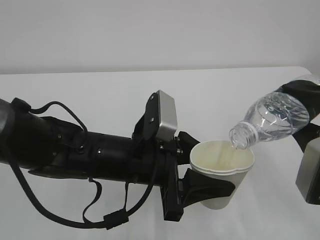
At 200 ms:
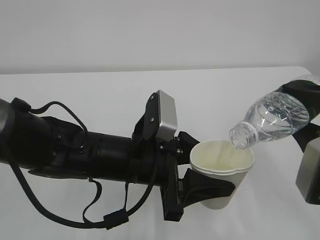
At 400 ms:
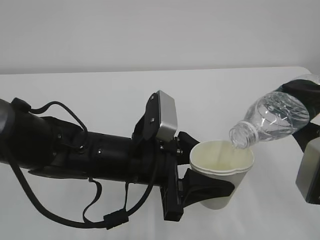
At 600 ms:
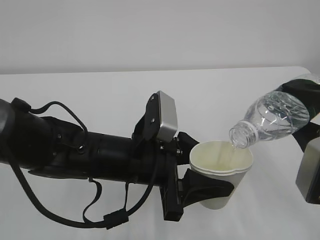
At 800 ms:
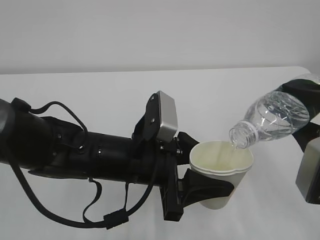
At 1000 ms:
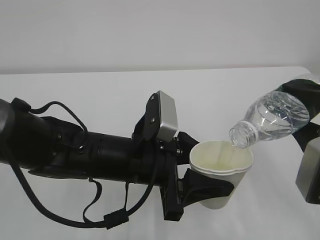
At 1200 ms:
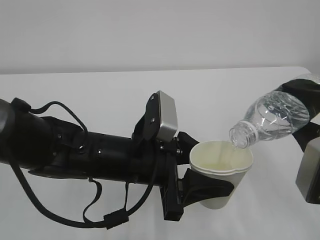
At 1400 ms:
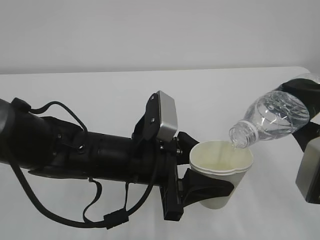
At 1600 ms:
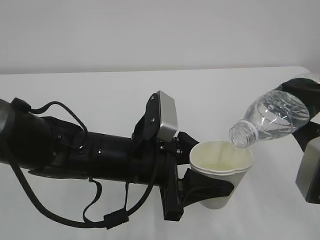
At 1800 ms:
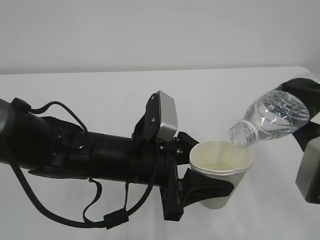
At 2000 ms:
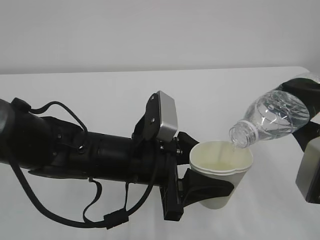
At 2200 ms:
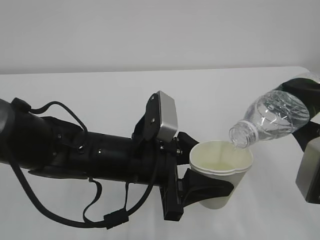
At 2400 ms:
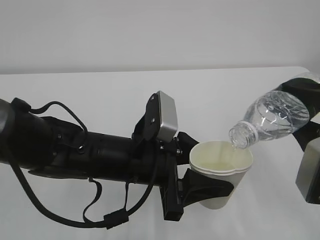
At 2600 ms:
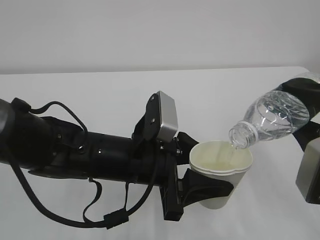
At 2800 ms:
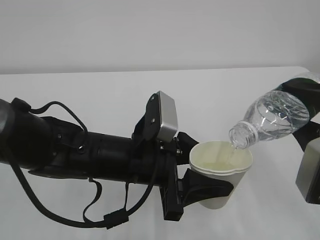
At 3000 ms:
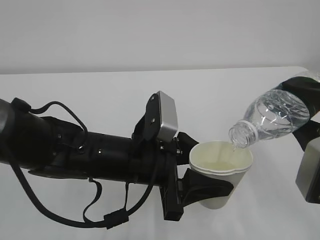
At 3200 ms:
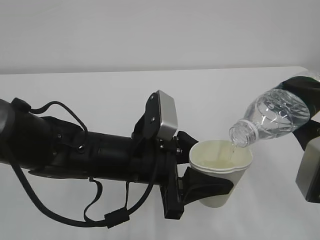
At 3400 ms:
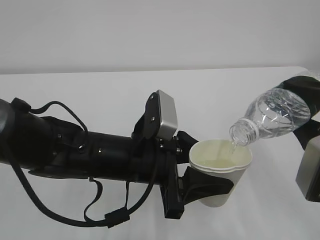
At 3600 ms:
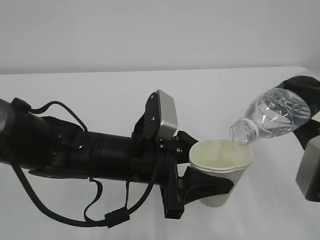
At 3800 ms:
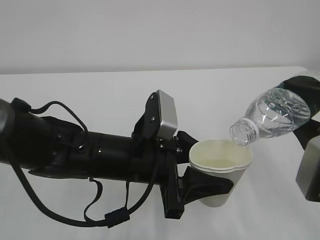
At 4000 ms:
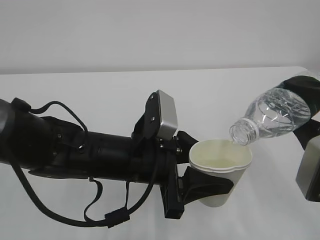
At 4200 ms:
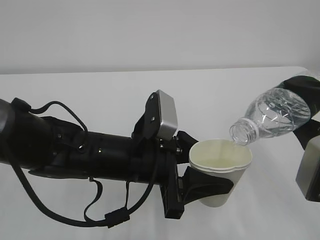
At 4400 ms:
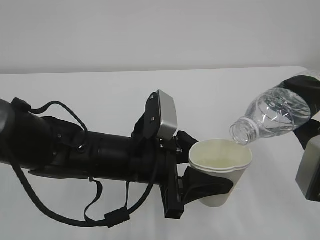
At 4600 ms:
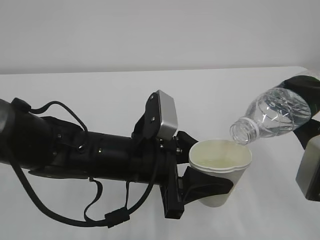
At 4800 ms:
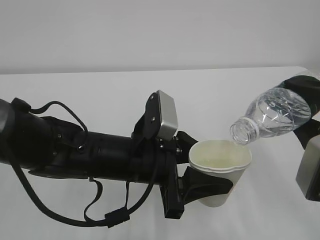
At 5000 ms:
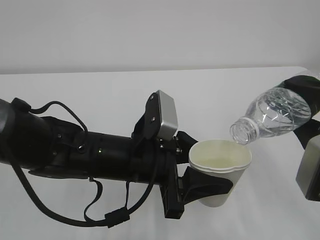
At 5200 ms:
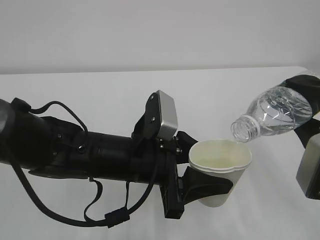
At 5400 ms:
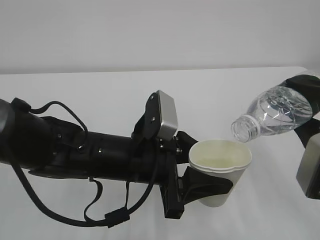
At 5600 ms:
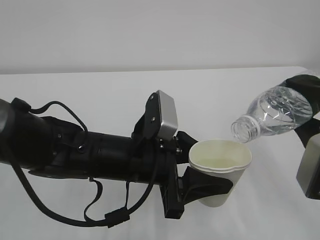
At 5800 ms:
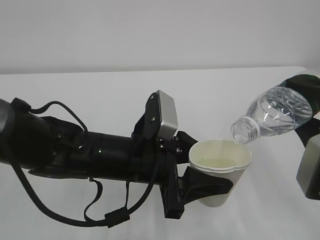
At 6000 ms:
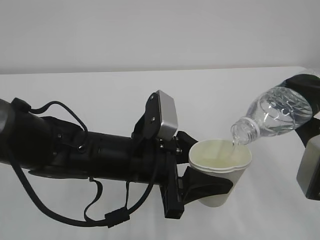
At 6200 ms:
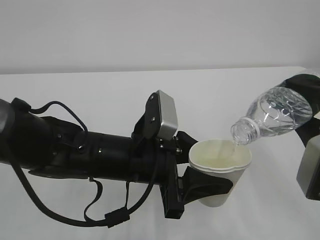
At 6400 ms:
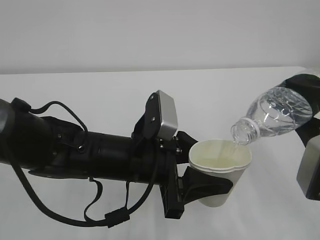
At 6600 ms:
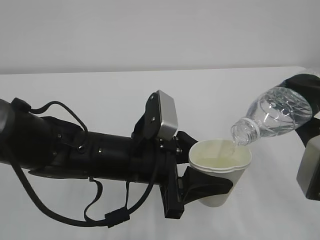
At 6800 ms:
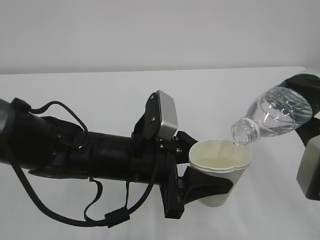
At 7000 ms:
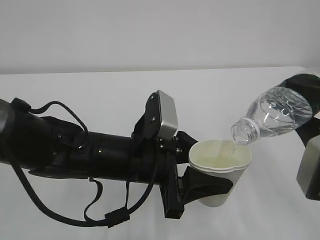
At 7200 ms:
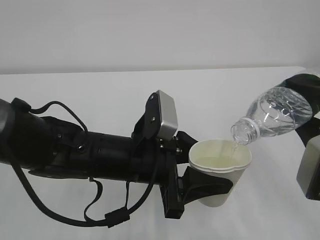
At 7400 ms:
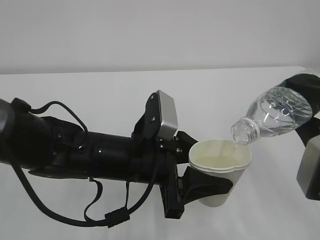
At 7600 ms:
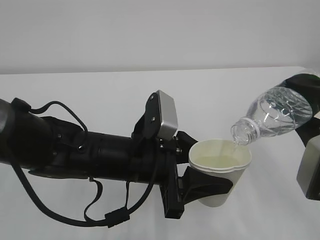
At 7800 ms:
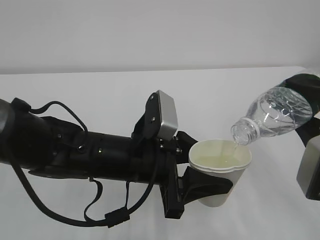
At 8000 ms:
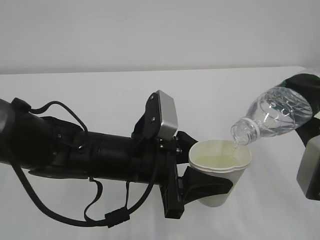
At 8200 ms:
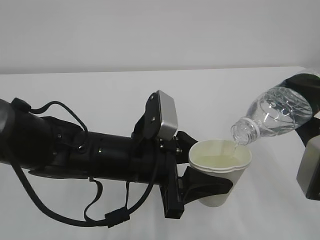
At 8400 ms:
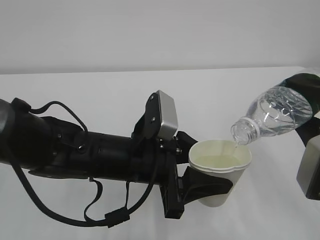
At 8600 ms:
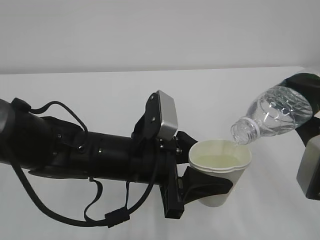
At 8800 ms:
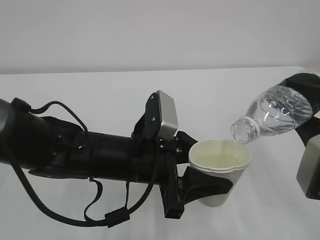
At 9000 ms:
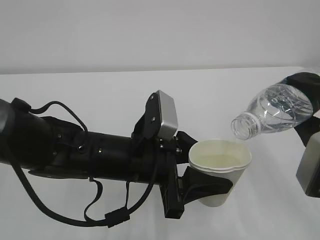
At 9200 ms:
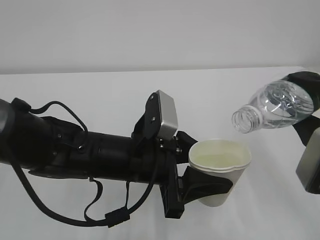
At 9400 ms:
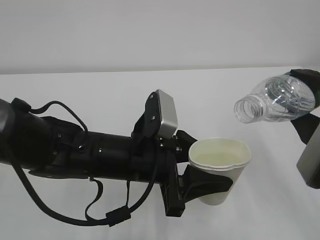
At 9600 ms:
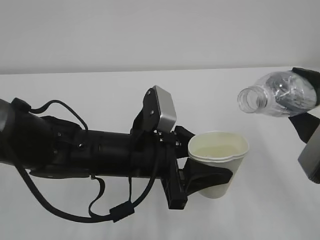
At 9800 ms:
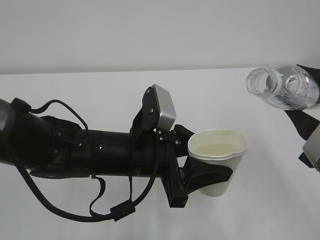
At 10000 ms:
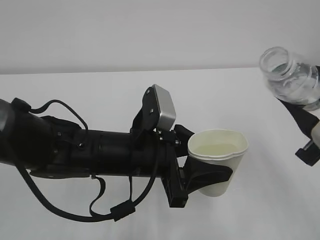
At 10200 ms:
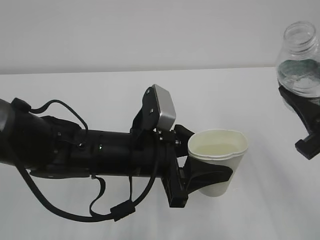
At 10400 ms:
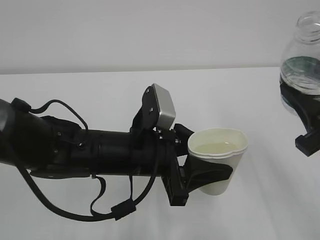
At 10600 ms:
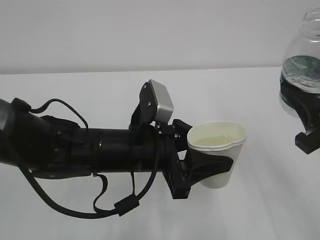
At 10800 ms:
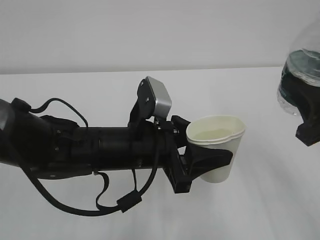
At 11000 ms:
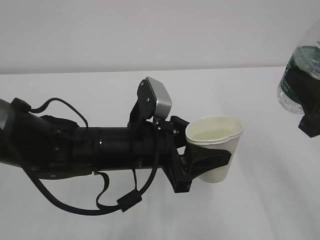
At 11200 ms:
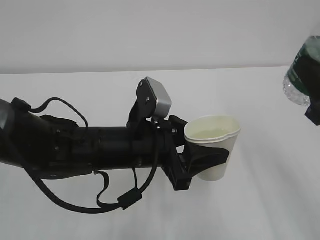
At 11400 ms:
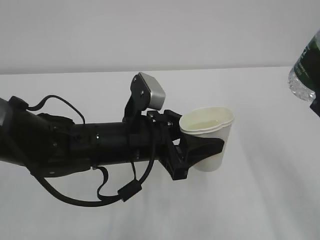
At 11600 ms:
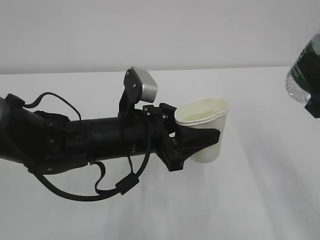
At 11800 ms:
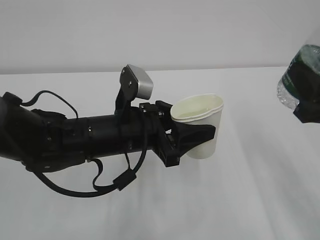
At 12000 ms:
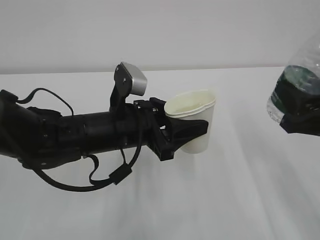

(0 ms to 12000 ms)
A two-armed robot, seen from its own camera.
0 ms - 9000 ms: Both grippers stay put.
10400 ms - 12000 ms: The right gripper moves some 5 cm.

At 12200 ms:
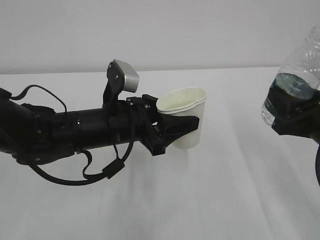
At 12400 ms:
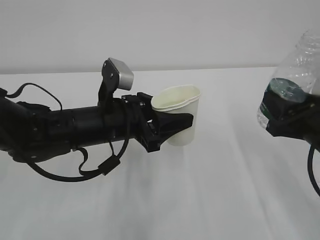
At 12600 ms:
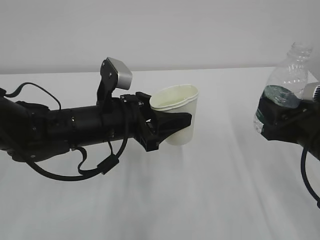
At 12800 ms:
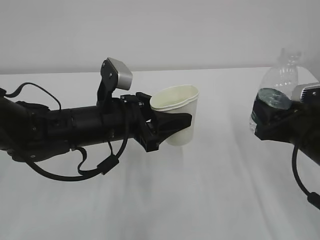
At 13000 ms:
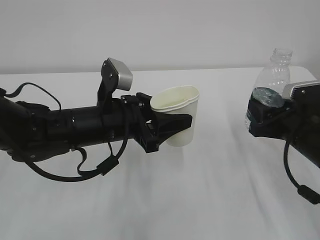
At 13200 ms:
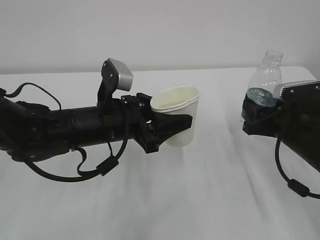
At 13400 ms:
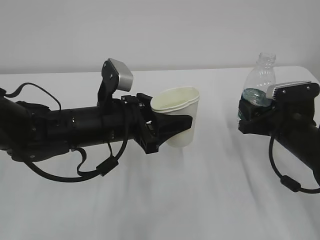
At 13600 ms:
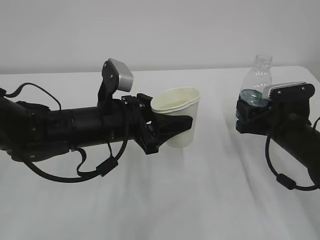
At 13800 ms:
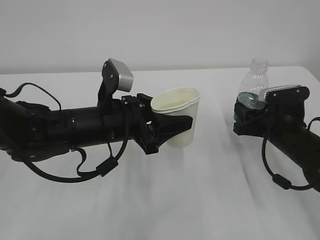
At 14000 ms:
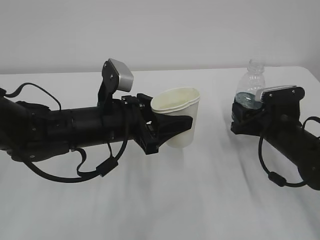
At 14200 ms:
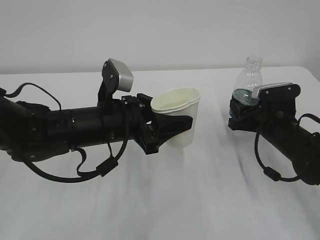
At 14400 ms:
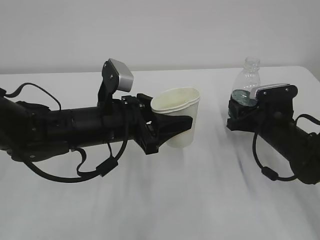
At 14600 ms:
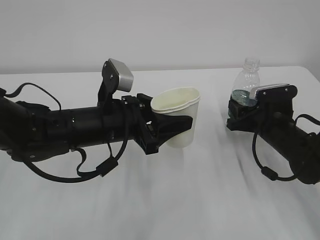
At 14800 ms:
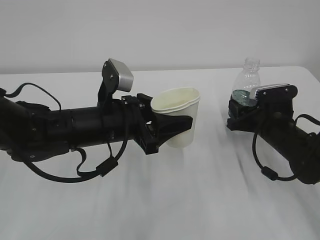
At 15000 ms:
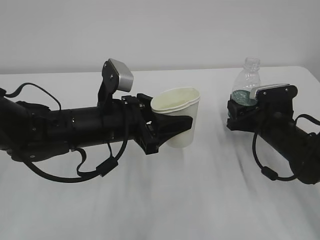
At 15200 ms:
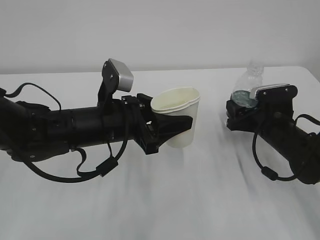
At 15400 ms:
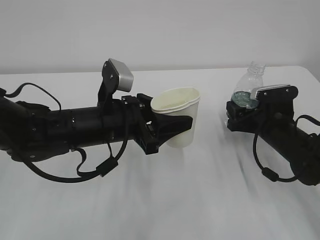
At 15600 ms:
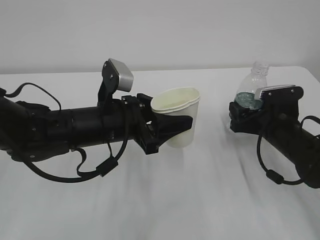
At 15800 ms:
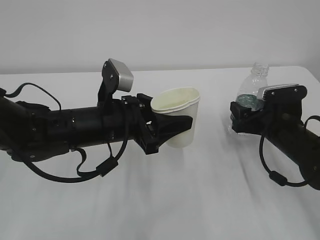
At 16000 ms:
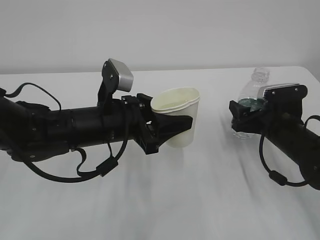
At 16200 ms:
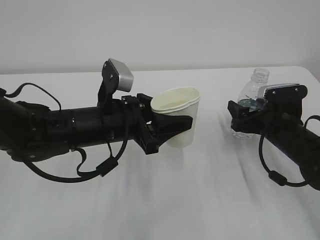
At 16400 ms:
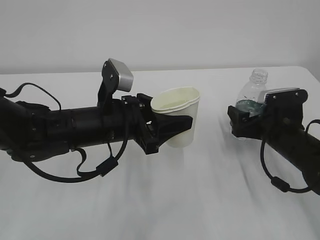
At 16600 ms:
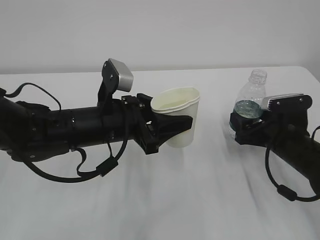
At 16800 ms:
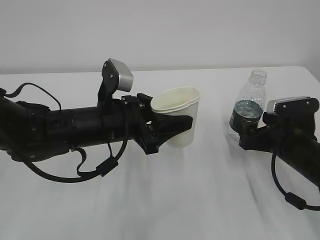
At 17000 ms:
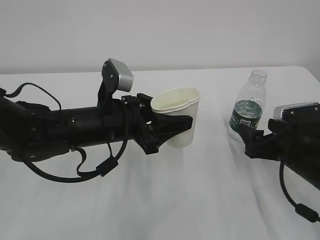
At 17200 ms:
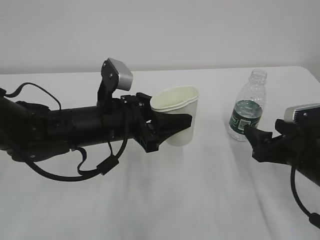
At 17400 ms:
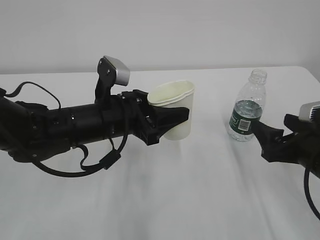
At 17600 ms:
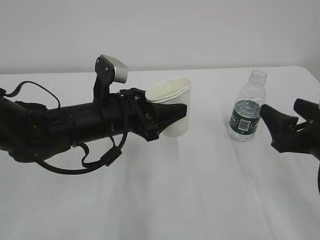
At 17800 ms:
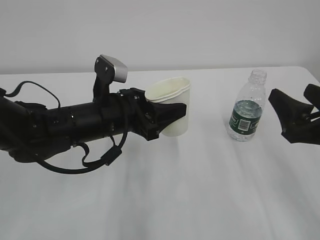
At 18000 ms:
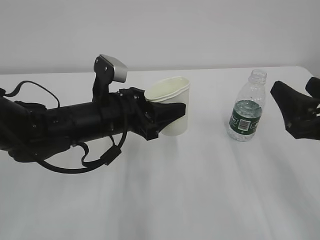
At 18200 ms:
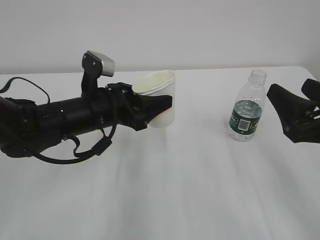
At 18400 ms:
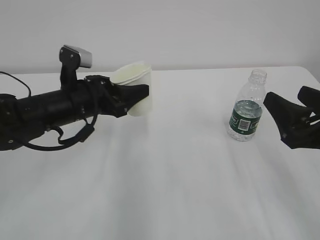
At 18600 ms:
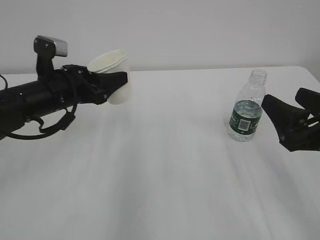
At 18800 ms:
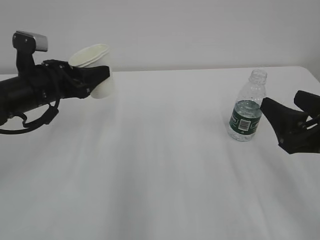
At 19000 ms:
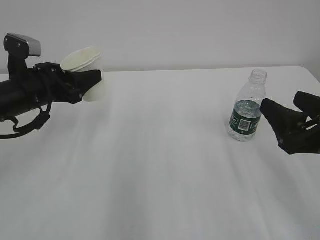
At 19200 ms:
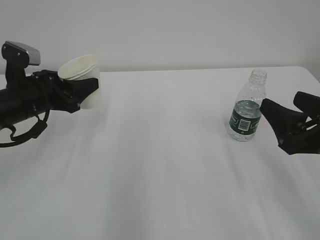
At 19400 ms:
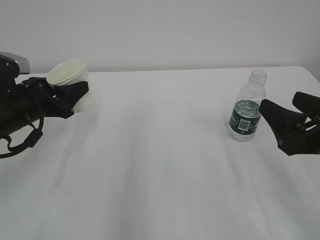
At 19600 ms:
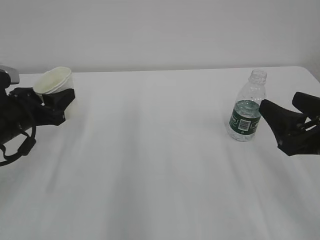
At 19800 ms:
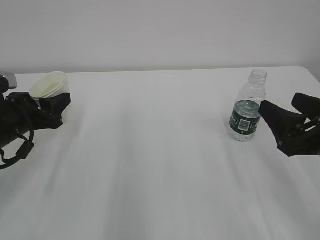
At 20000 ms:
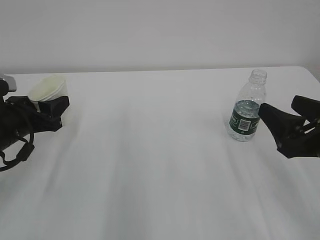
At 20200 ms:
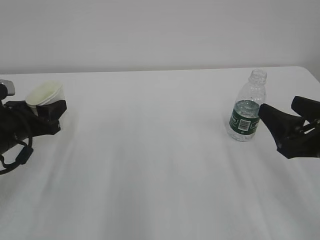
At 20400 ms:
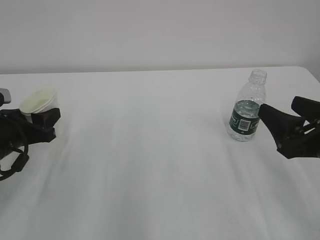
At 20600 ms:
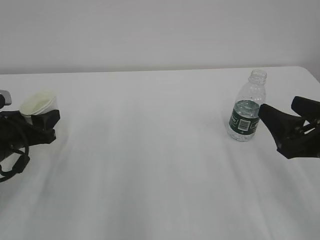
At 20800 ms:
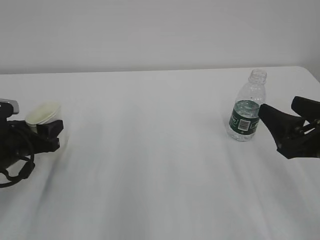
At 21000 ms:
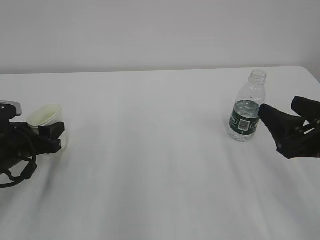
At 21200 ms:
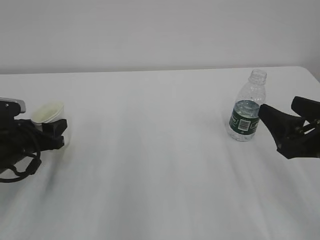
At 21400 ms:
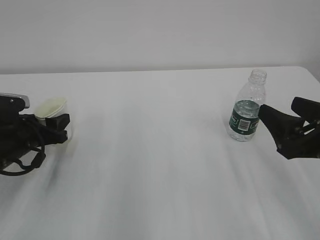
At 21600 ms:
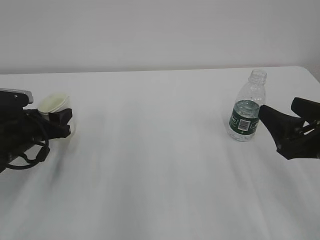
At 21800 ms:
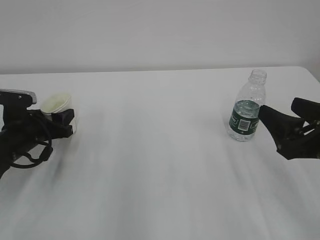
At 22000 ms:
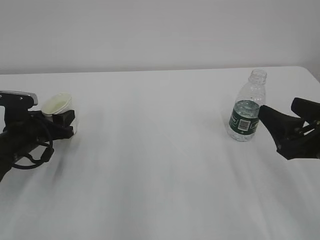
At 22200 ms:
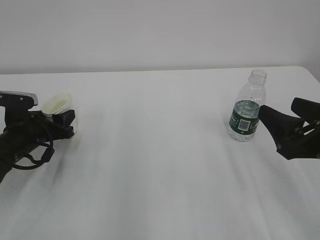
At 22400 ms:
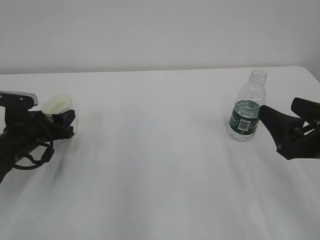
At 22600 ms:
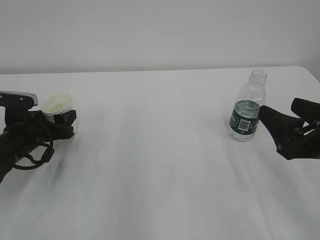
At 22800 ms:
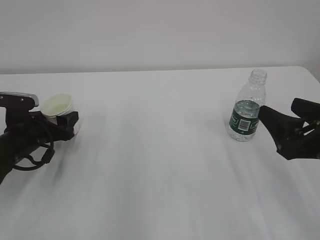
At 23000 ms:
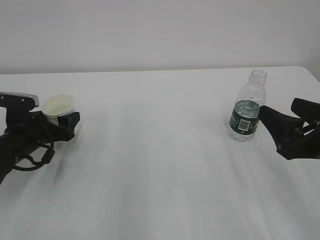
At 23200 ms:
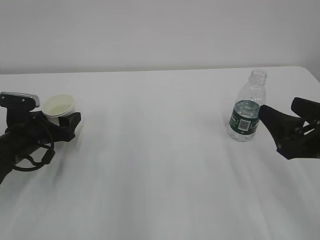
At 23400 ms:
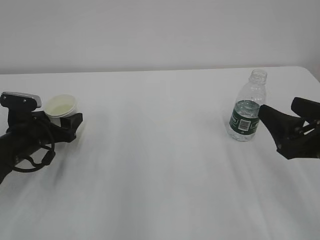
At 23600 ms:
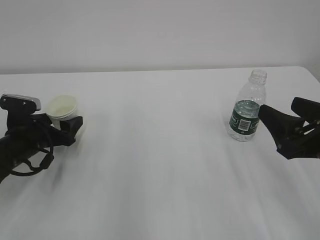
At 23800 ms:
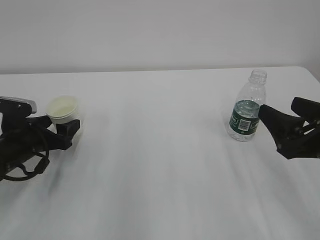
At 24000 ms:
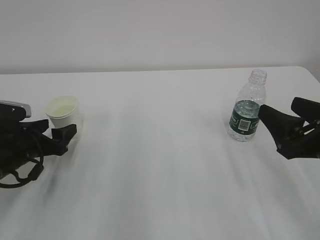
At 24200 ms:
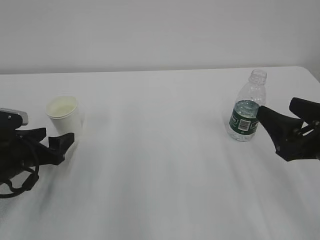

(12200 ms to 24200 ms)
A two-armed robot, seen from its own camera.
12200 ms - 13800 ms: The right gripper heads forward and downward, covering some 15 cm.
13800 ms - 15200 ms: The right gripper opens.
15200 ms - 16600 ms: The grippers move only a little.
16600 ms - 18200 ms: The right gripper goes approximately 15 cm upward and backward.
18200 ms - 19800 ms: The left gripper heads to the left, covering some 15 cm.
19800 ms - 21200 ms: The left gripper is displaced downward by about 5 cm.
21200 ms - 22600 ms: There are only small adjustments of the grippers.
22600 ms - 24200 ms: The left gripper goes some 5 cm backward, and opens its fingers.
